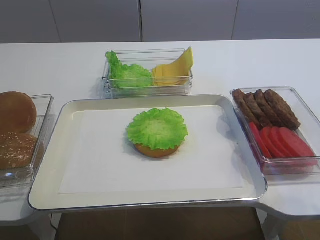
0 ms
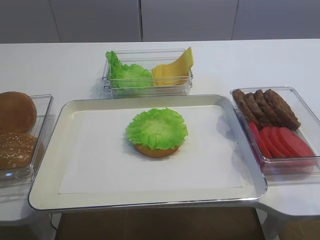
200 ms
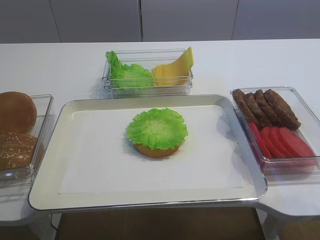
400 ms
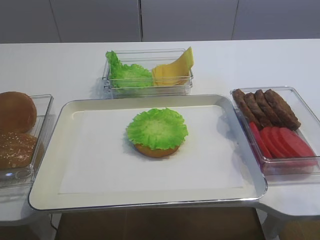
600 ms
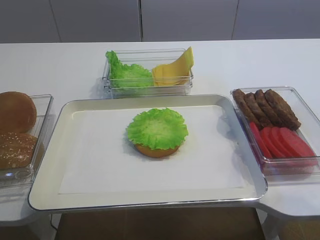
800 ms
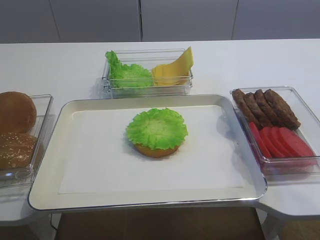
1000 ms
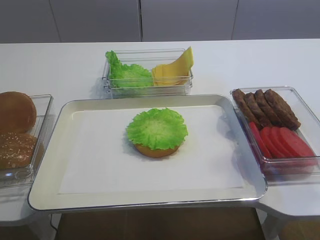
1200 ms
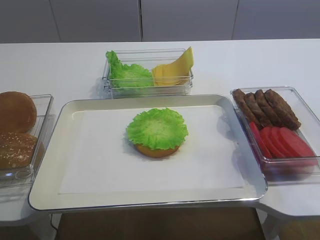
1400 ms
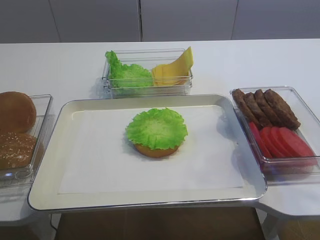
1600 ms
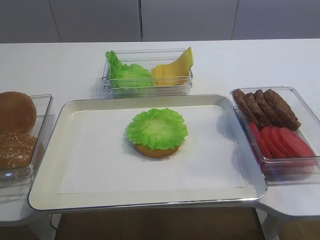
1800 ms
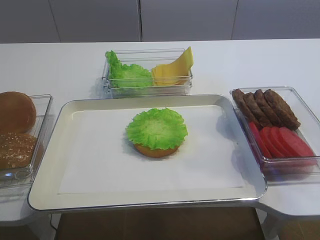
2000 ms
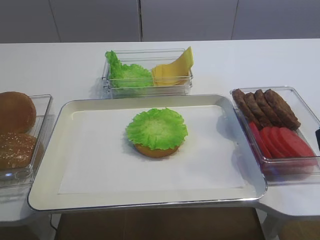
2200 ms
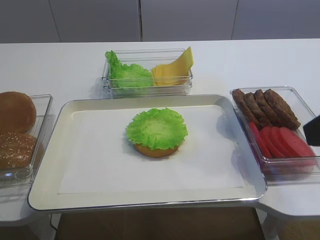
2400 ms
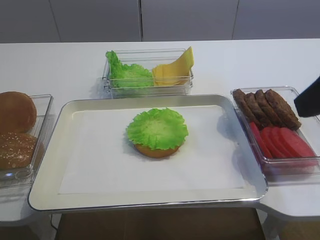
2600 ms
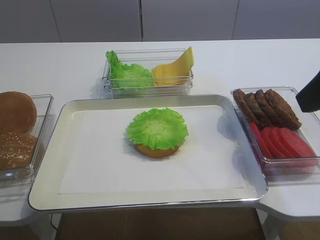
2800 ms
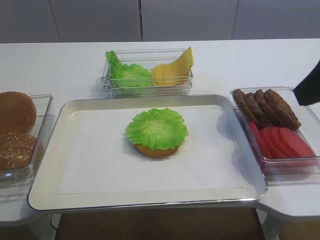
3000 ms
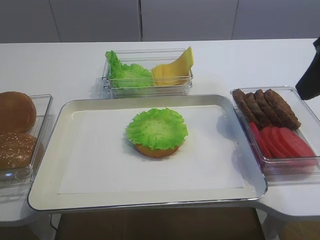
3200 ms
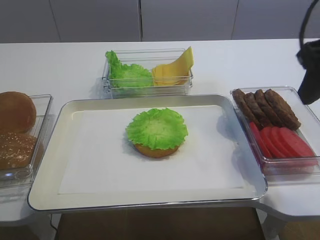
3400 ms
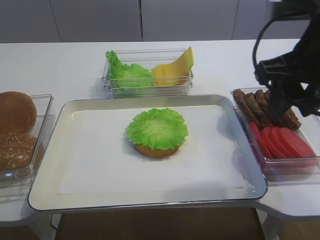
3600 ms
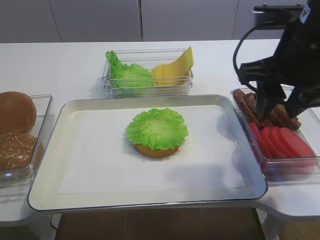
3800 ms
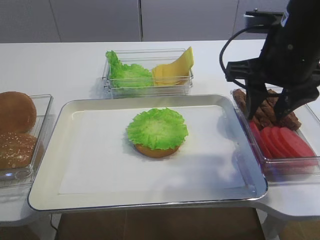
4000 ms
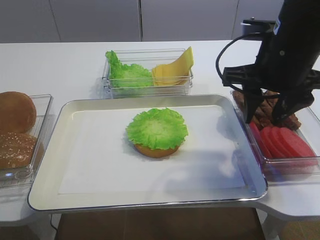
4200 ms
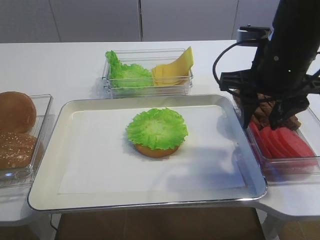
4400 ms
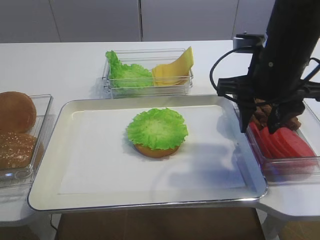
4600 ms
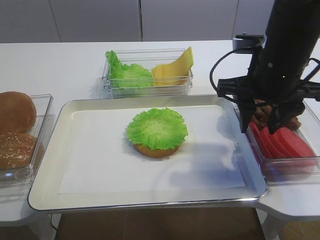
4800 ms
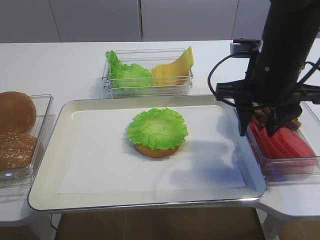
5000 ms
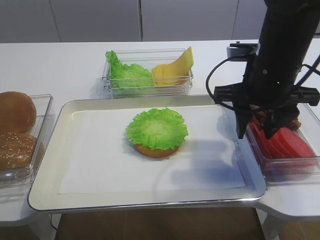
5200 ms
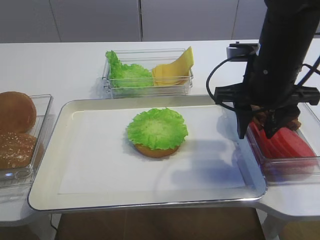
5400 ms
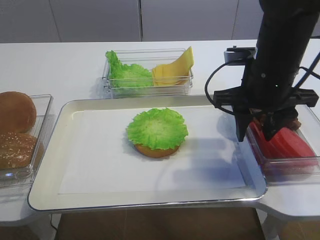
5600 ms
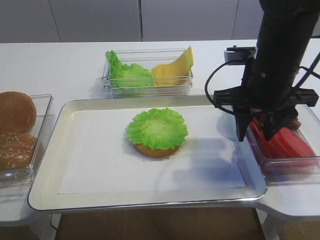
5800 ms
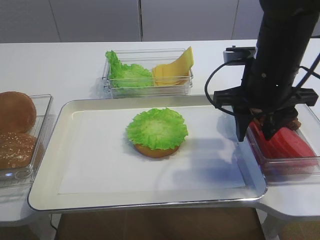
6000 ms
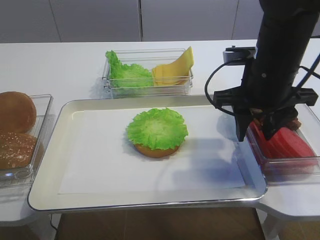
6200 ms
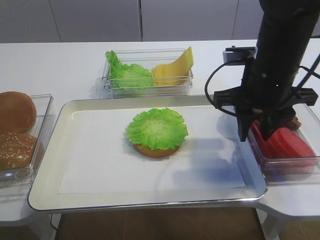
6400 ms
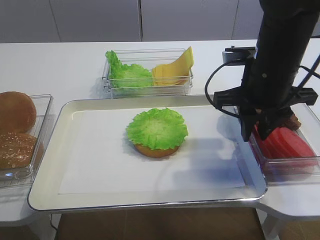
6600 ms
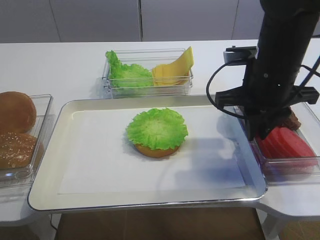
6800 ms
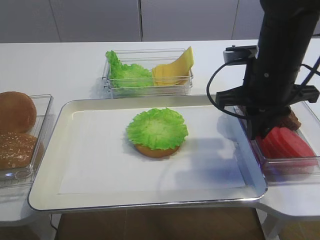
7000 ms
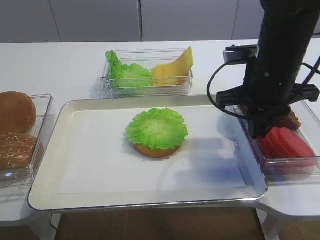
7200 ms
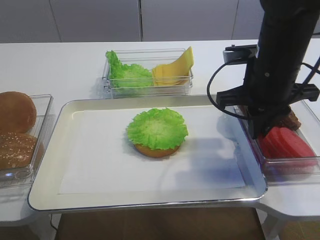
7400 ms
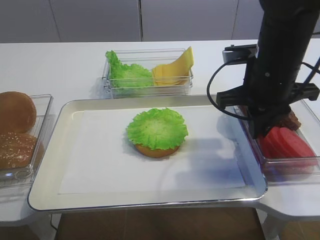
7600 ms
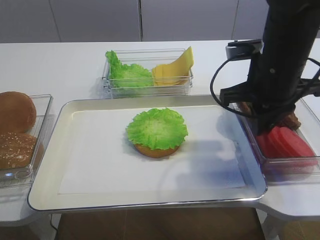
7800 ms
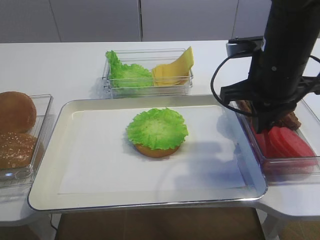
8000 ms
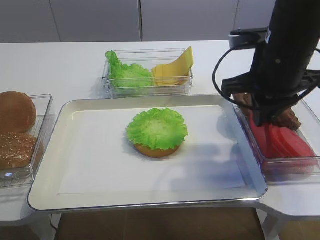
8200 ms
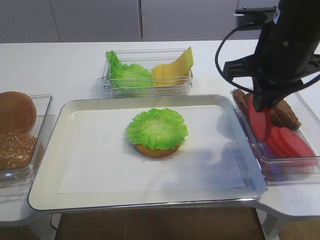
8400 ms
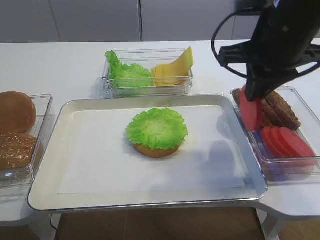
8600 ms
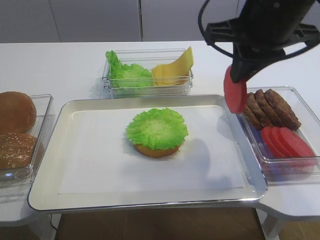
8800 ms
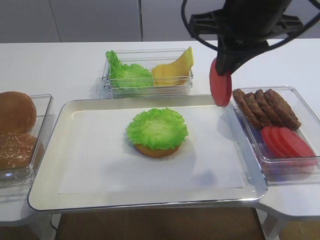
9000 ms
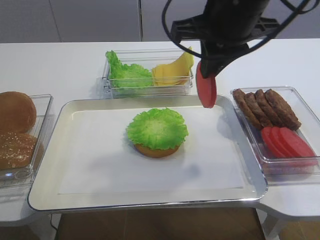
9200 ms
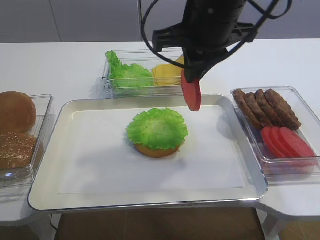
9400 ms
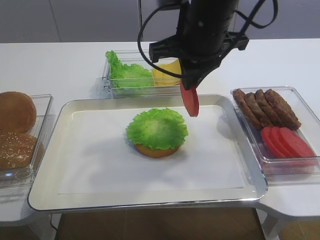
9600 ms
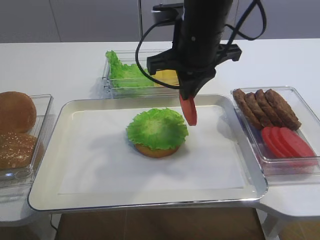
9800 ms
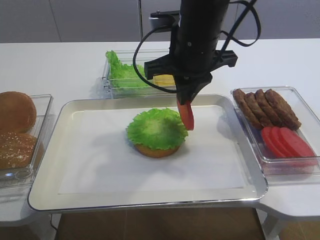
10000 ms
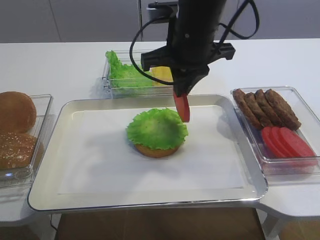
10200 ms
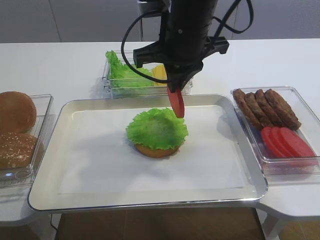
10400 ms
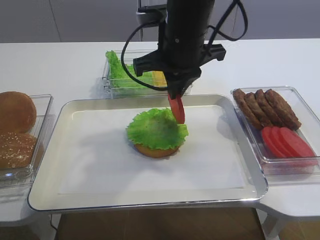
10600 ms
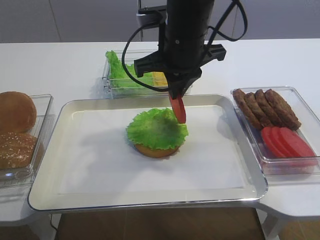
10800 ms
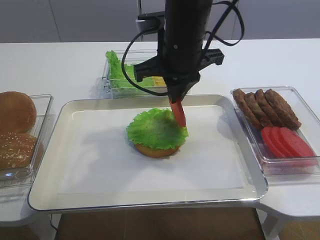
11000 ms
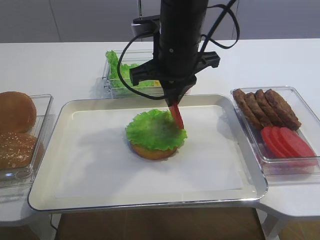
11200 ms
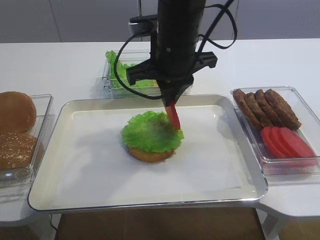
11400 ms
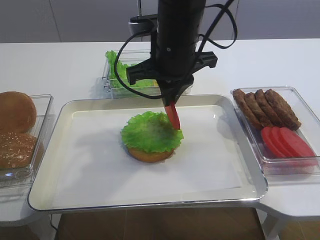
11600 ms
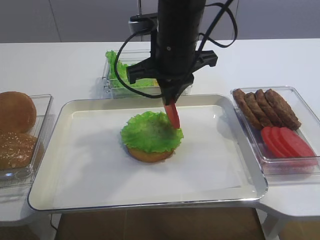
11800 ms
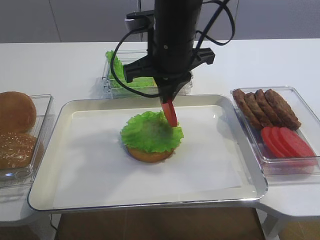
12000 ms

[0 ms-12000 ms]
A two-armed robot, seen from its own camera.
Step, 0 ms to 8600 ms: Pick up the tomato slice with the right gripper.
1600 ms to 3000 ms: The right gripper moves forward, about 10 cm.
3000 ms to 4400 ms: The right gripper heads forward, downward and to the left, covering approximately 15 cm.
4400 ms to 6000 ms: The grippers stay close to where they were, moving slightly.
6000 ms to 7600 ms: The right gripper closes its fingers.
7600 ms to 9000 ms: The right gripper shifts about 10 cm upward.
9000 ms to 10400 ms: The right gripper is displaced to the left by about 10 cm.
10400 ms to 12000 ms: The grippers move only a little.

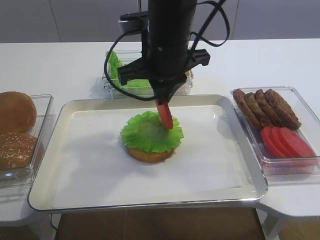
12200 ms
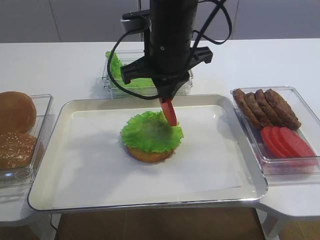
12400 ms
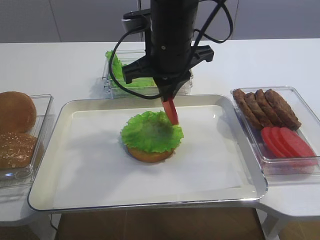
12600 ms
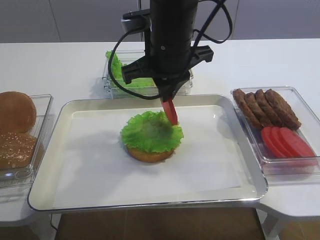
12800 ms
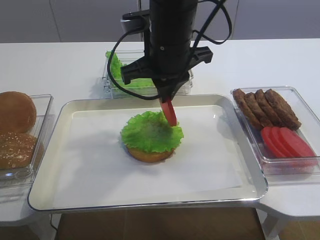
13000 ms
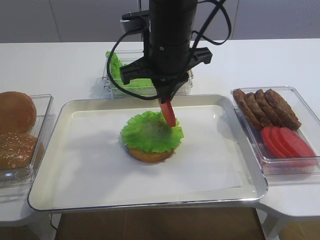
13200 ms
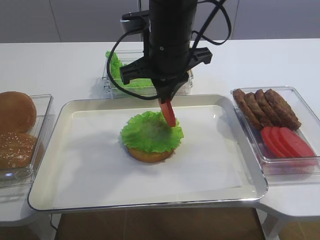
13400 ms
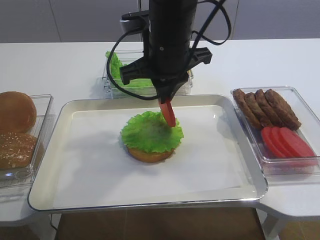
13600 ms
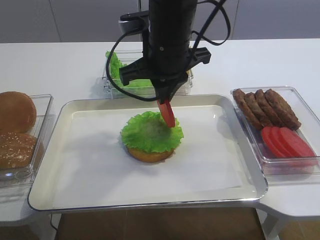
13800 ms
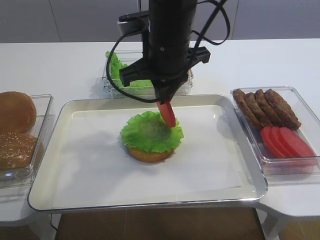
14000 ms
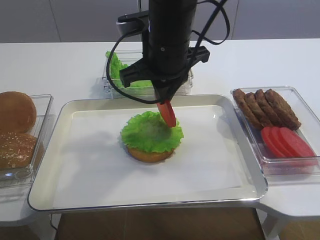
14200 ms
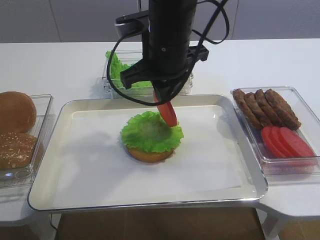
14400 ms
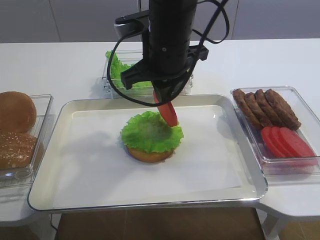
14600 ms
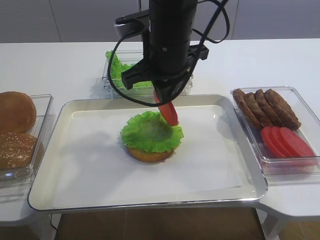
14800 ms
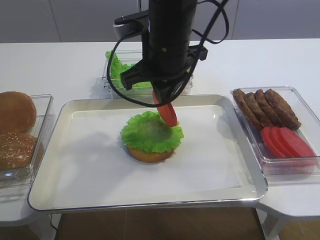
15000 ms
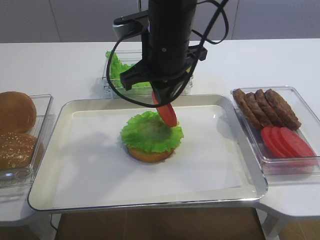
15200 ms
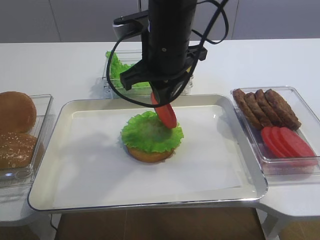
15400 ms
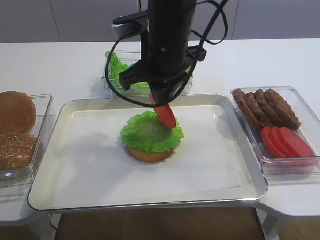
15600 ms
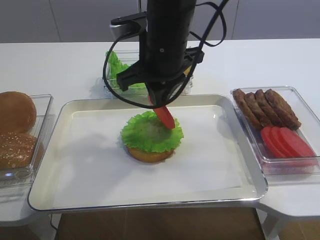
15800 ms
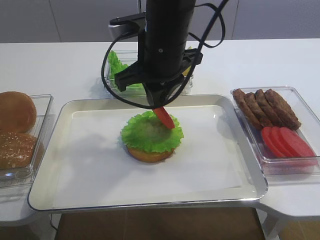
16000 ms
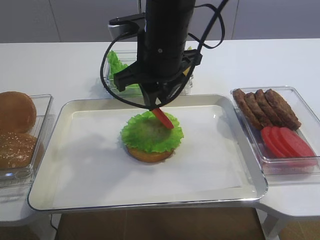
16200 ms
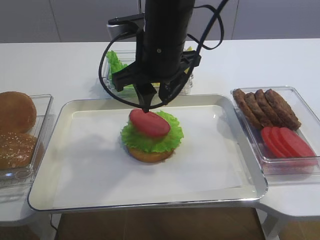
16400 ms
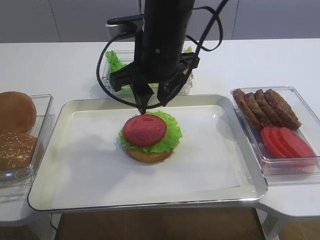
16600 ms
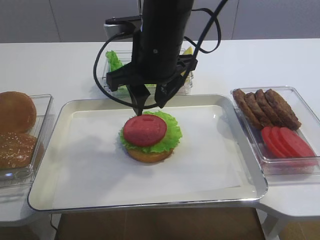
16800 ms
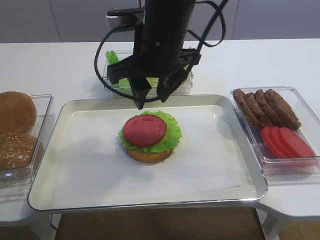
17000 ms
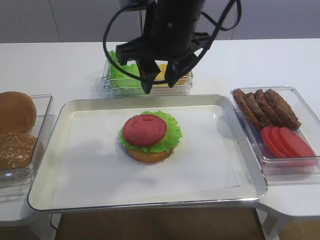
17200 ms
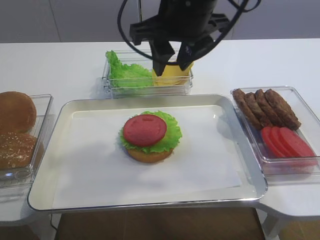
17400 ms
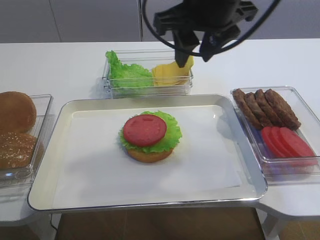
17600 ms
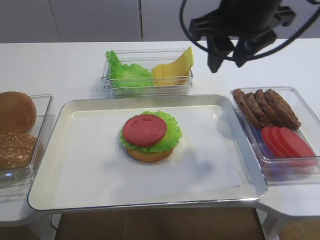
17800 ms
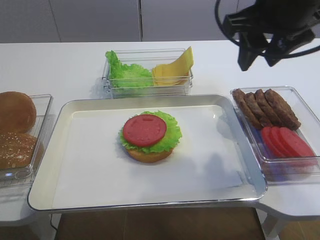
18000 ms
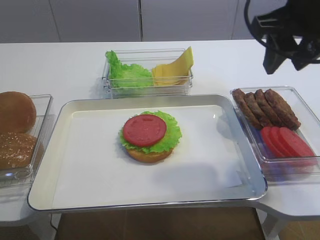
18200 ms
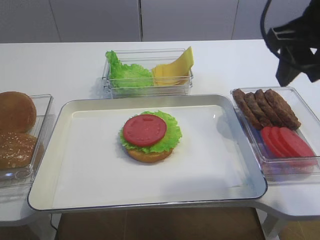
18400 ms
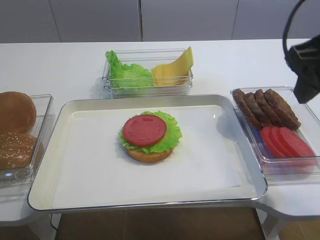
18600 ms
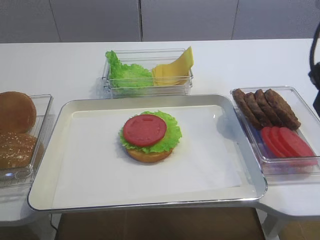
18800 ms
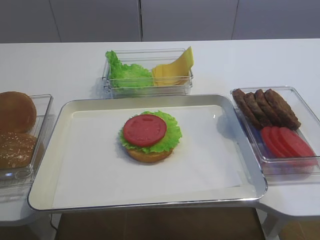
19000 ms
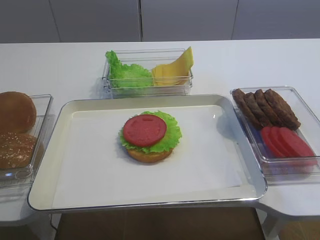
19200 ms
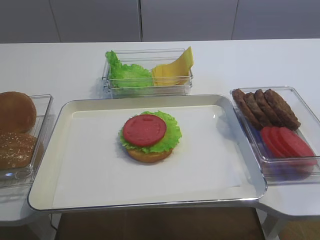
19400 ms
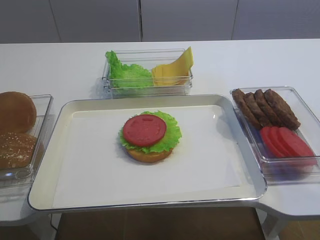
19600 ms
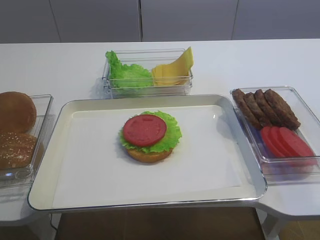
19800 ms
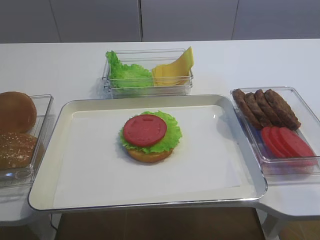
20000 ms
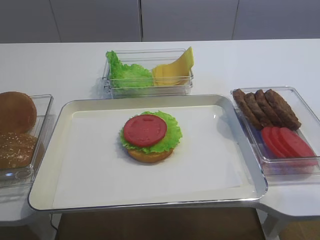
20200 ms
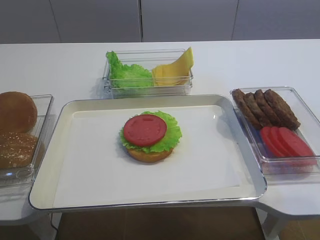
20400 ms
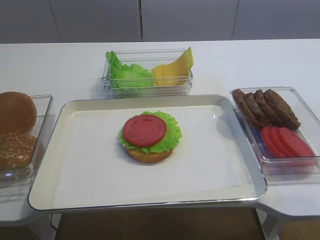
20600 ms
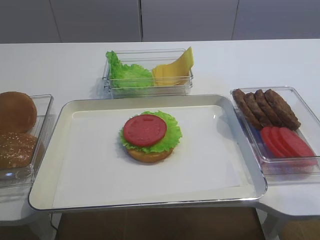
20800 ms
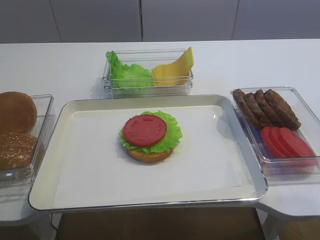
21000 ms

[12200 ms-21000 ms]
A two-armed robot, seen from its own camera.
Step, 12200 ms to 17000 ms: Place the tomato slice on the lettuce leaf with the right gripper.
12200 ms to 13600 ms: Neither gripper changes place.
13600 ms to 15200 ms: The grippers stay close to where they were, moving slightly.
15200 ms to 16600 ms: The right gripper opens its fingers.
16600 ms to 18000 ms: The right gripper travels to the right and upward by about 15 cm.
18000 ms to 19600 ms: The right gripper is displaced backward and to the right by roughly 30 cm.
19600 ms to 21000 ms: The right gripper is displaced downward by roughly 5 cm.

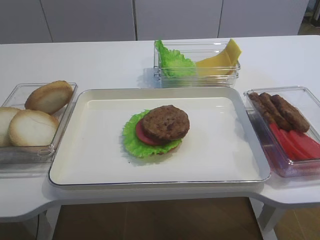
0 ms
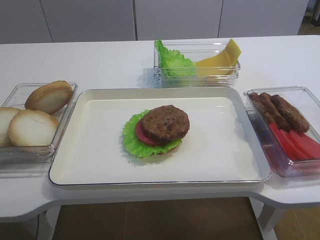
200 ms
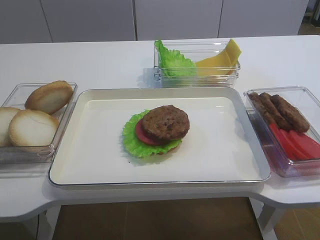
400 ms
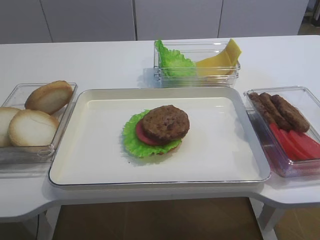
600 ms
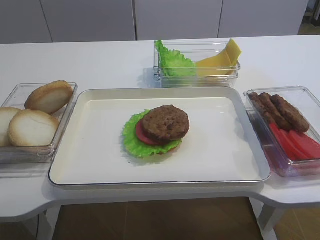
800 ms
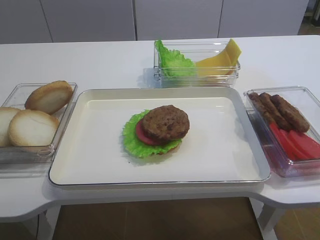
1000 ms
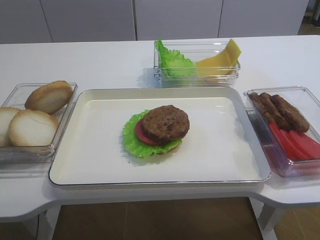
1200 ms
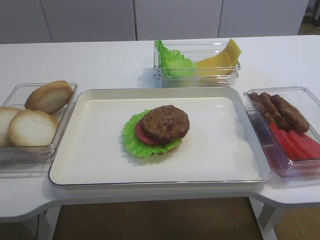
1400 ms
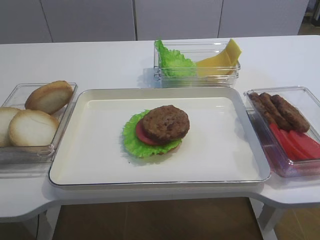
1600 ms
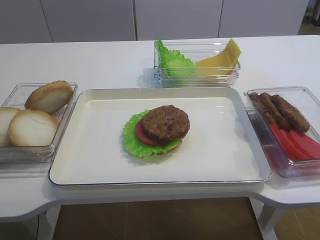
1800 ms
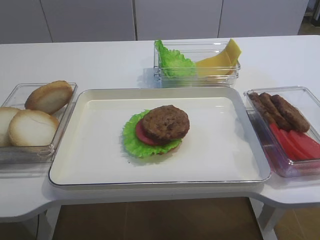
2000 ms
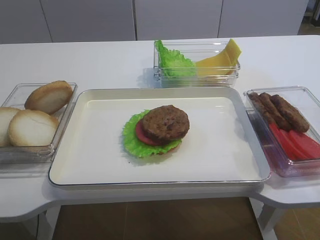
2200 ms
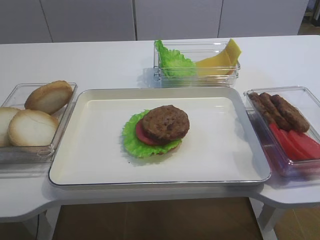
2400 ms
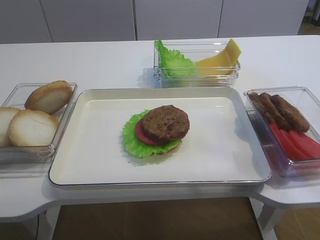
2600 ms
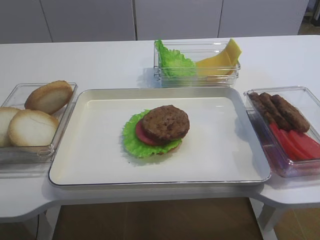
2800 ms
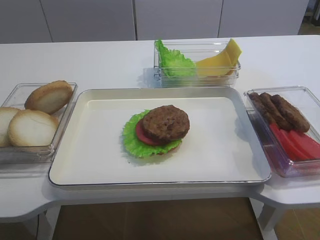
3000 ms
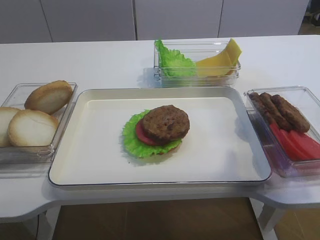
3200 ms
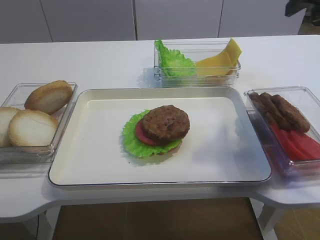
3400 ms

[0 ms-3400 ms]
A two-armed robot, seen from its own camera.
1600 ms to 3400 ms: The right gripper heads forward, covering approximately 35 cm.
